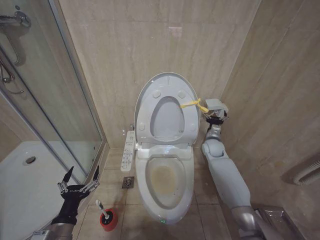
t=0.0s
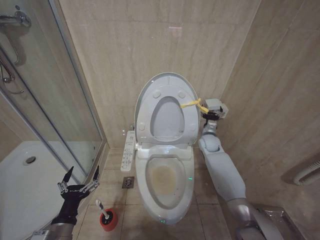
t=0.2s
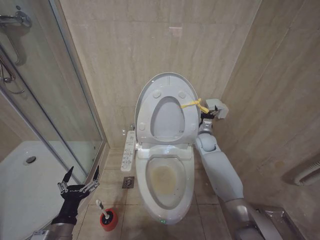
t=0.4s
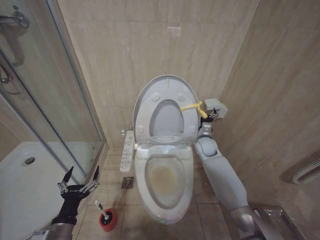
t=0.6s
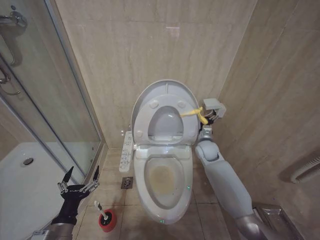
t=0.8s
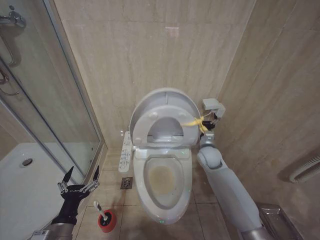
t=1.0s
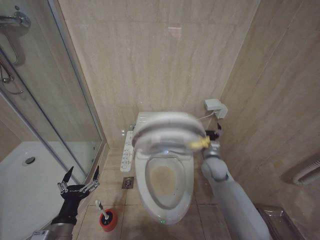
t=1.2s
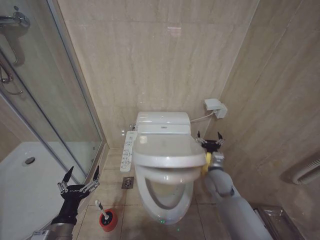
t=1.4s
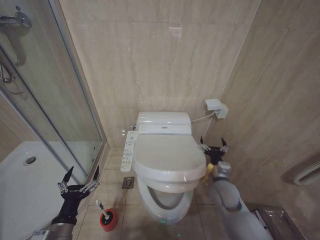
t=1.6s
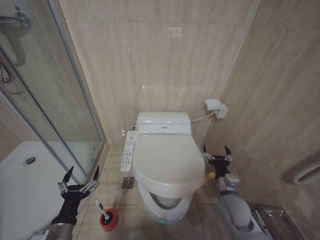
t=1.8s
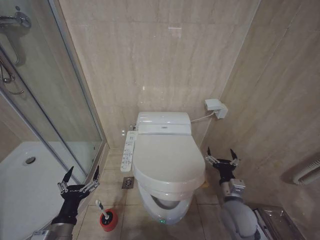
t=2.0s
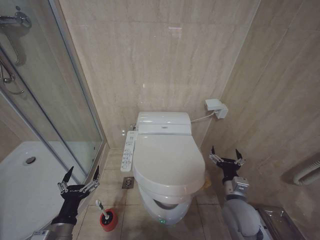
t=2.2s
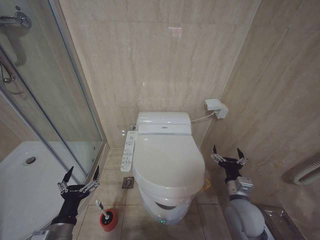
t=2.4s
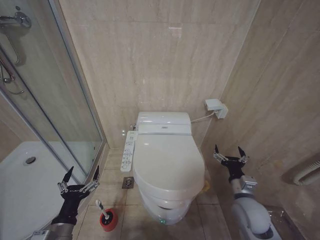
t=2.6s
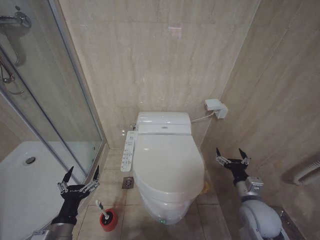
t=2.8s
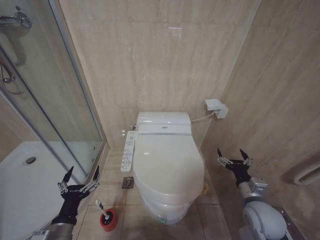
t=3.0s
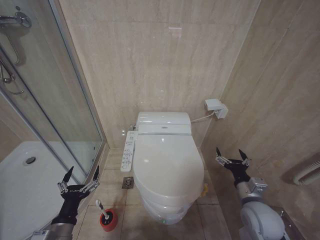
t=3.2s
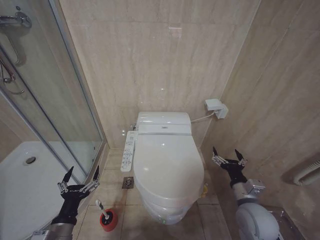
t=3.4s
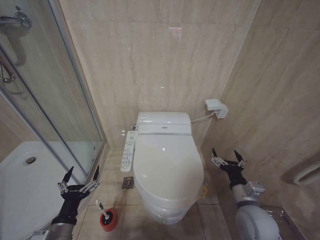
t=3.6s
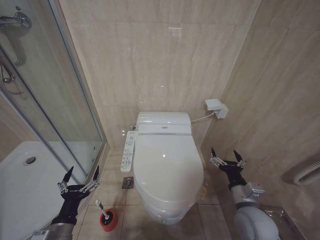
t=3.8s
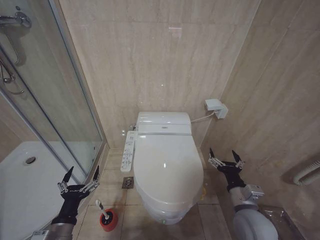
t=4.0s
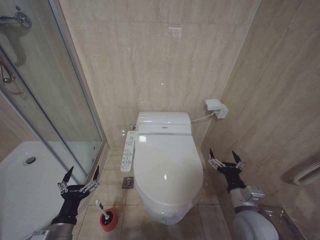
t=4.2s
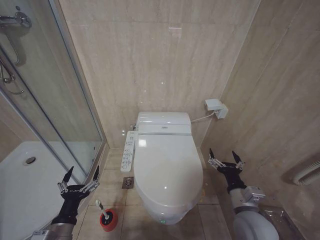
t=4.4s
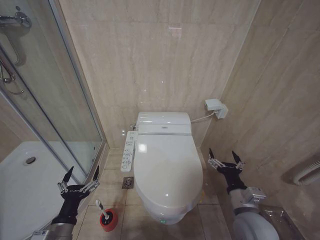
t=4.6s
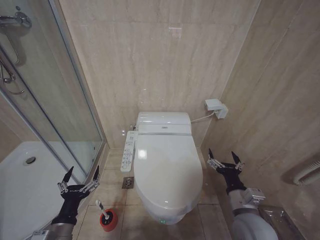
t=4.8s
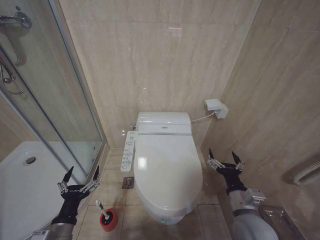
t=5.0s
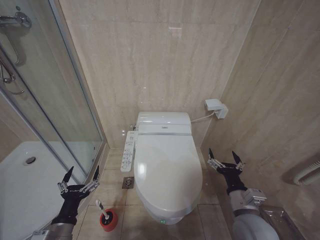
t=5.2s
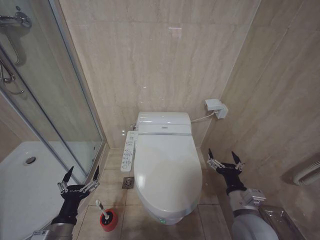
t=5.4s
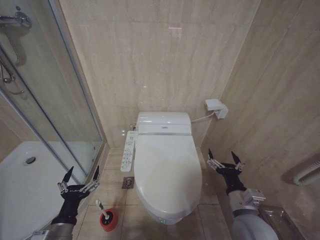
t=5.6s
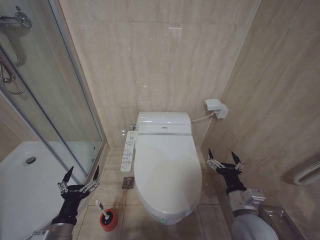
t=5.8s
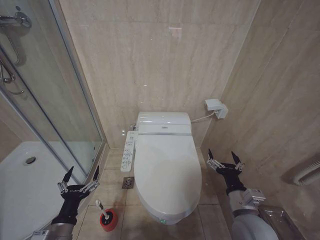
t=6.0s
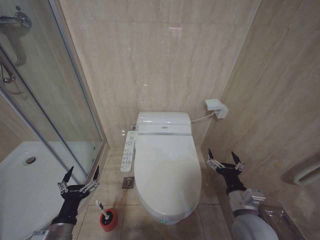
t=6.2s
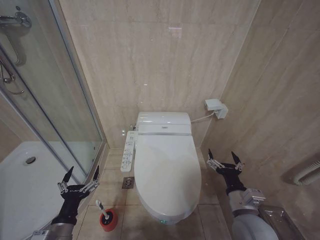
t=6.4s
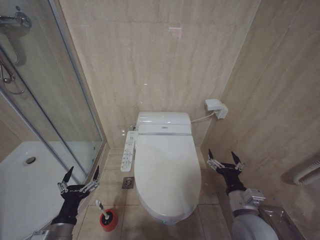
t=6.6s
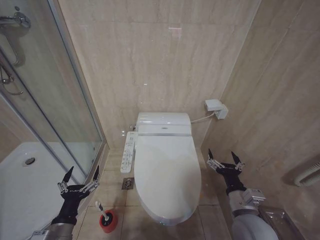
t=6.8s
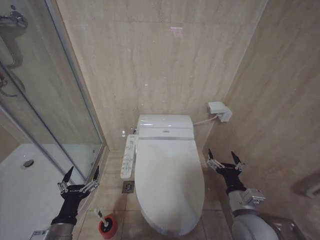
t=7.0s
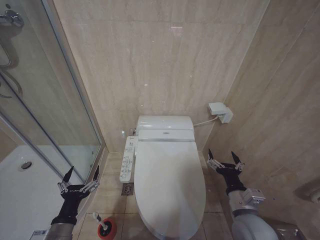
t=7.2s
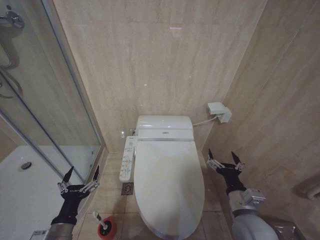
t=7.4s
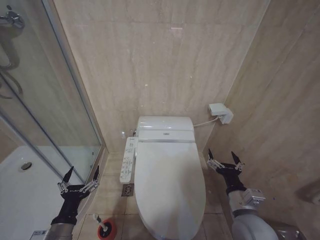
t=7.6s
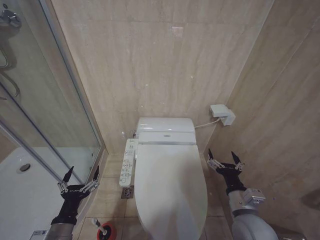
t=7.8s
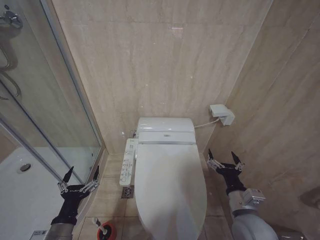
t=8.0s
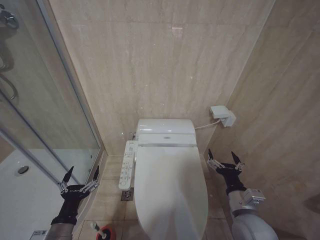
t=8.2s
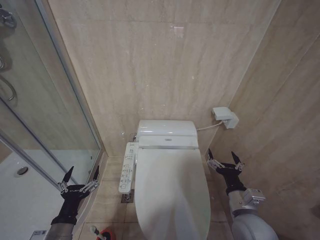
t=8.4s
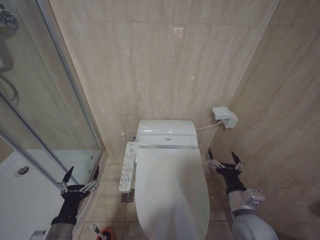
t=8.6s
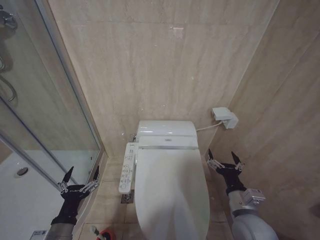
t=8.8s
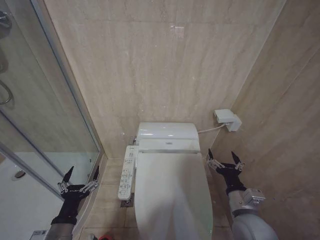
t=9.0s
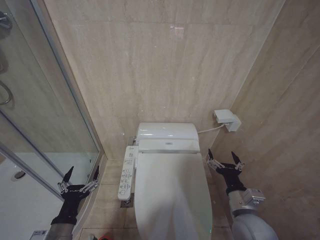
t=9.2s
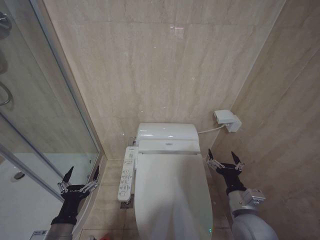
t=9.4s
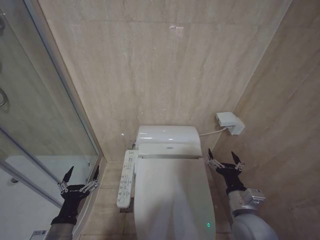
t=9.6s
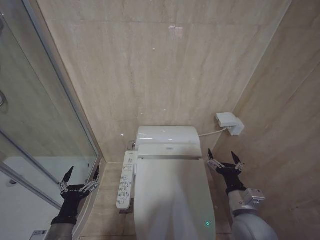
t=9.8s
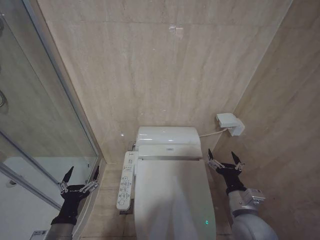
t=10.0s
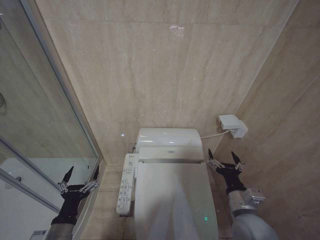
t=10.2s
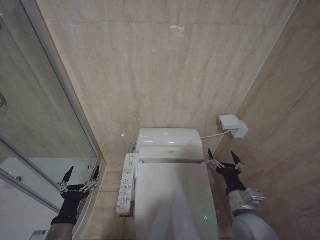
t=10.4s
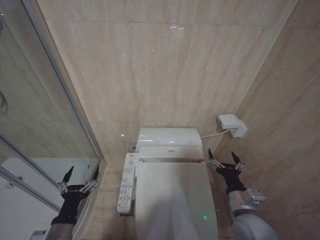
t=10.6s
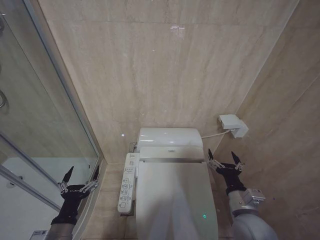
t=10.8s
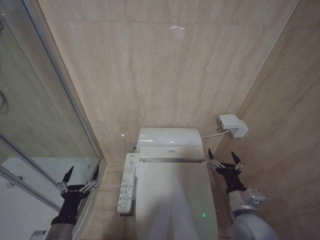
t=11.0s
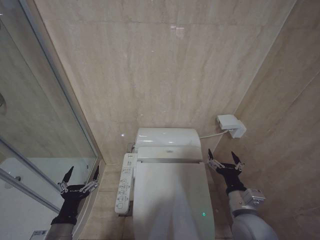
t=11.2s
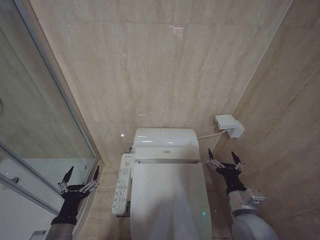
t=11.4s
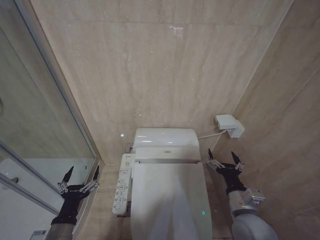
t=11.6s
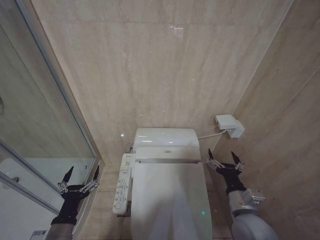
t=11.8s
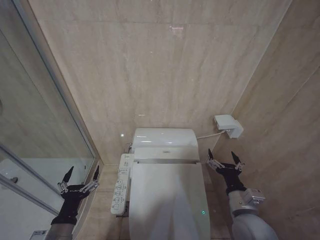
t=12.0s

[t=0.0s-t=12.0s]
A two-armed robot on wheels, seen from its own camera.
Task of the whole recording: Open the toilet lid, clean the toilet bowl with a toilet brush, close the toilet lid, and flush.
t=0.0s to t=1.6s: The right gripper shifts about 15 cm backward.
t=1.6s to t=3.0s: The right gripper heads backward and to the right, covering roughly 10 cm.
t=3.0s to t=4.4s: The right gripper moves to the left, some 5 cm.
t=6.0s to t=12.0s: The two grippers keep their place.

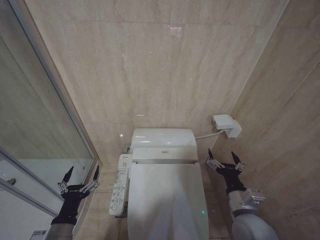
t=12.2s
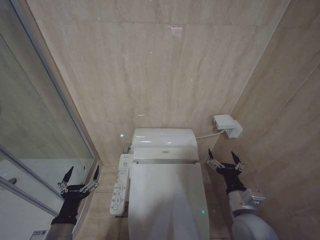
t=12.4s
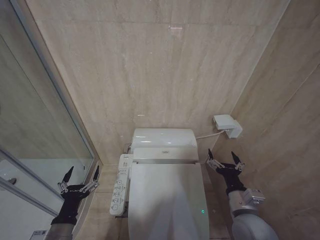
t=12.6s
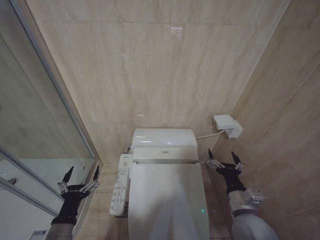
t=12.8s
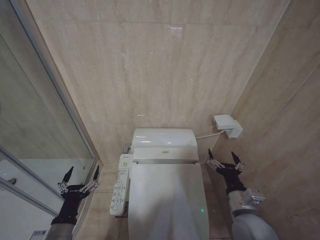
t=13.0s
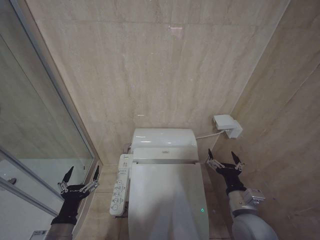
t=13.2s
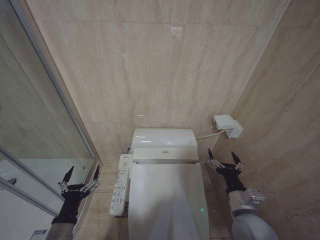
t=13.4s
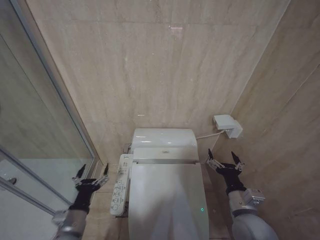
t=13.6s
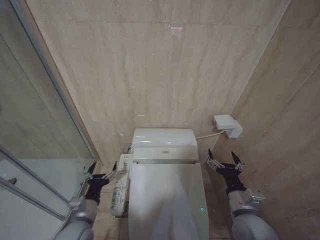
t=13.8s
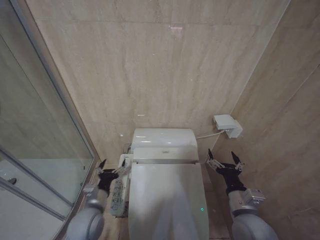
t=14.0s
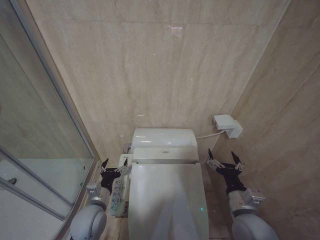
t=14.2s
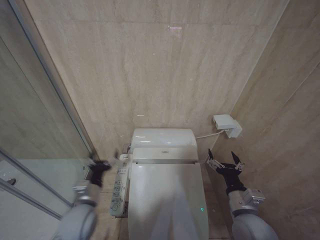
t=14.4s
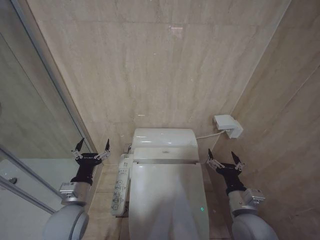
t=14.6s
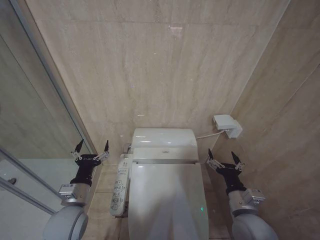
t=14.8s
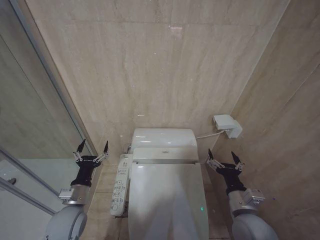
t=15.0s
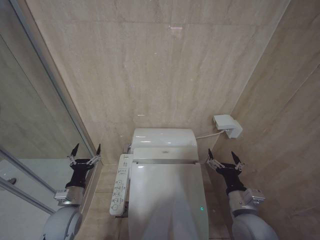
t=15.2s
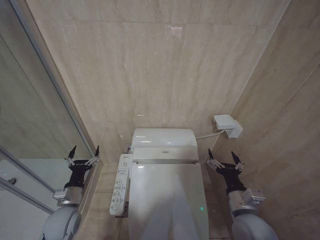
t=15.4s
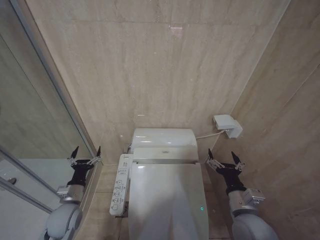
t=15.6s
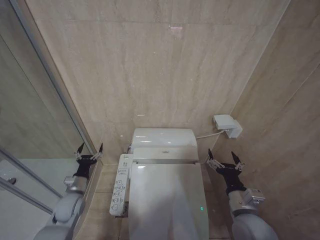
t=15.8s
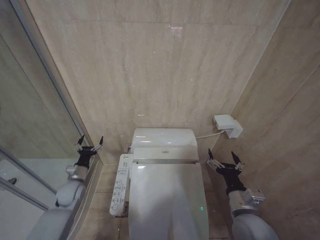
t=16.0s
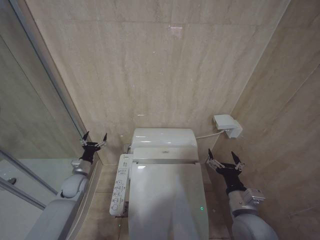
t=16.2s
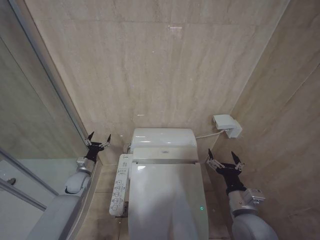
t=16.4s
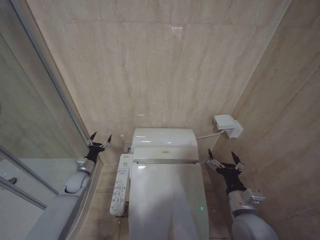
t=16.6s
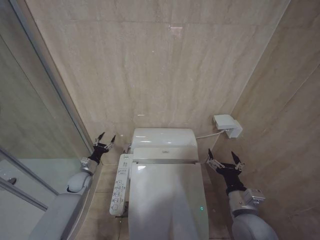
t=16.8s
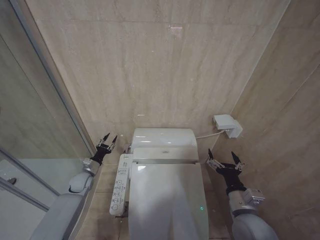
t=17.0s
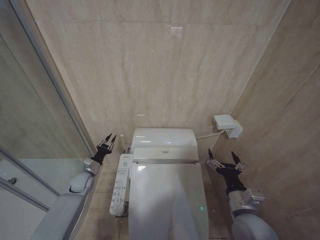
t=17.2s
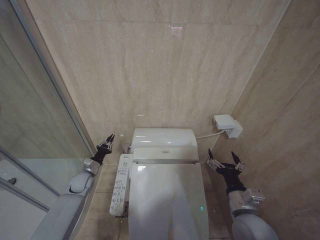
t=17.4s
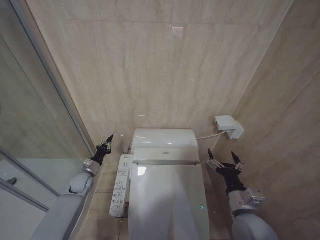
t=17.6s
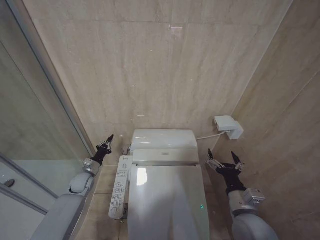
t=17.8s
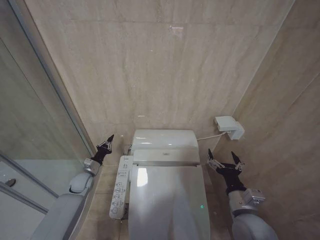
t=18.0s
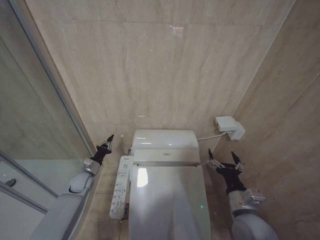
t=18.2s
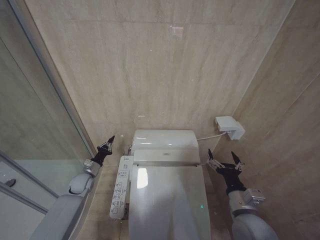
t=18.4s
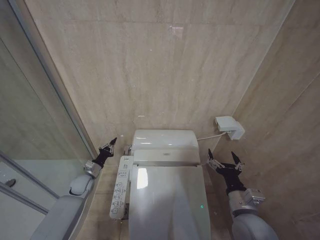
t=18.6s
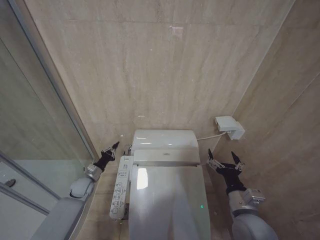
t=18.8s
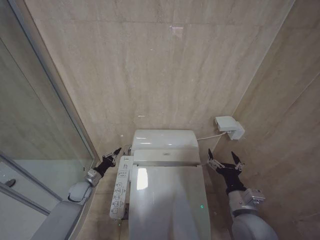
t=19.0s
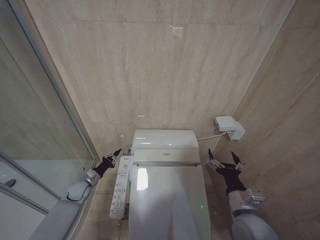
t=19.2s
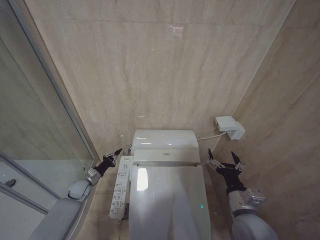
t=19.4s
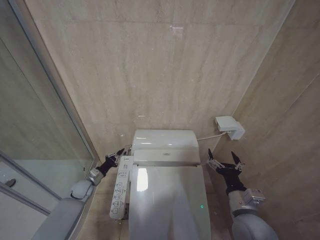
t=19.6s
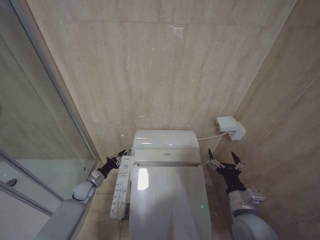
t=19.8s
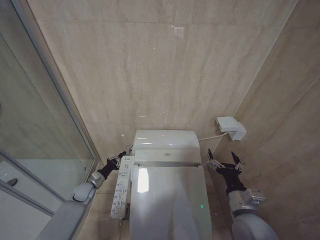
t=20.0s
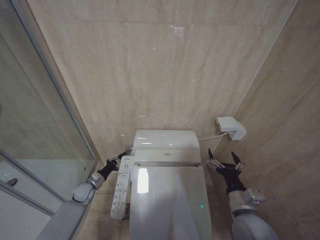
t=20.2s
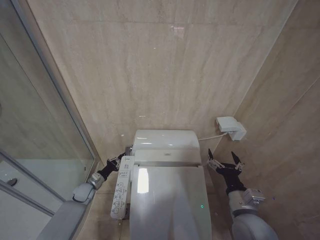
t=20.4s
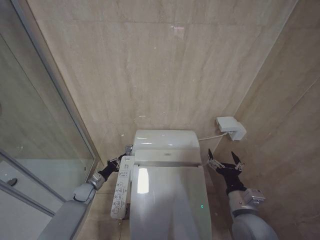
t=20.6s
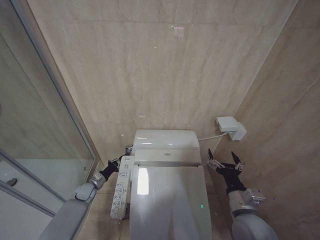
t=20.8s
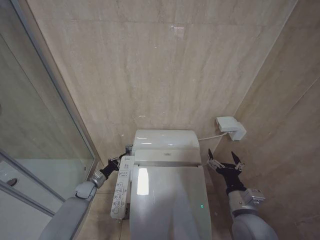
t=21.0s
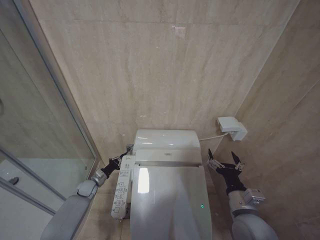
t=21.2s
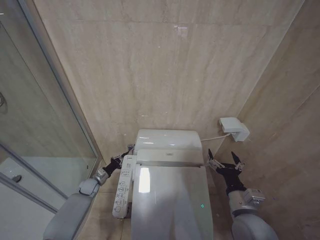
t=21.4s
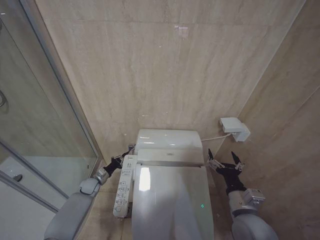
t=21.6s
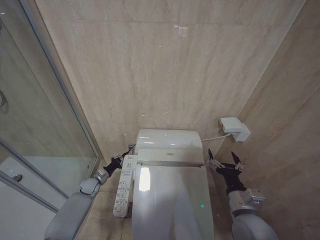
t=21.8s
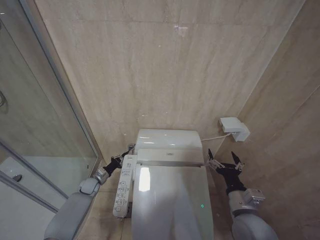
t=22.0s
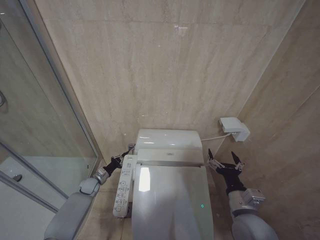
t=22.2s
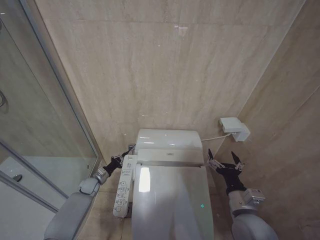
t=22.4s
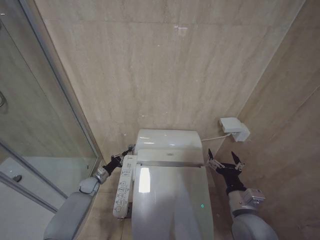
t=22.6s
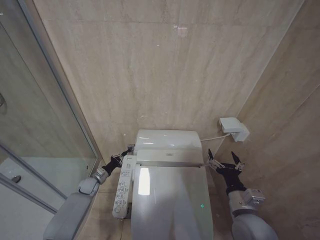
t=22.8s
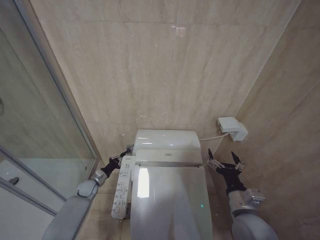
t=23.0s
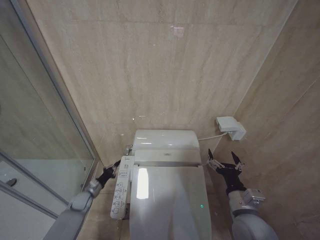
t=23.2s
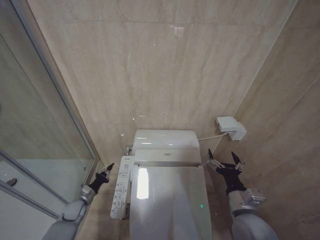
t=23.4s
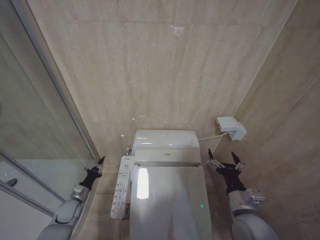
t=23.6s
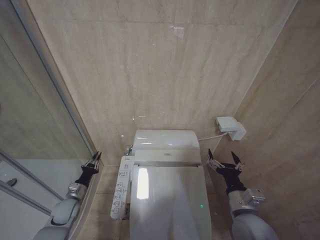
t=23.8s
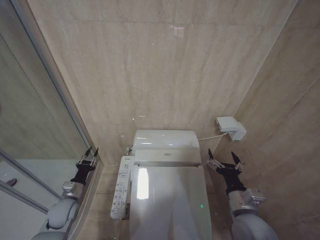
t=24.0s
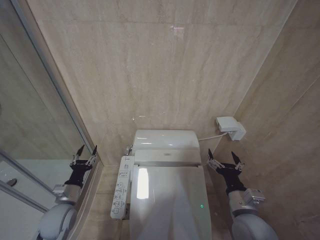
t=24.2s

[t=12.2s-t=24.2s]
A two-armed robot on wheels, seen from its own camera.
Task of the whole recording: Open the toilet lid, clean the toilet bowl with a toilet brush, close the toilet lid, and flush.
t=12.2s to t=13.8s: The left gripper heads forward, covering some 5 cm.
t=13.8s to t=15.2s: The left gripper moves forward, roughly 5 cm.
t=15.2s to t=16.6s: The left gripper goes approximately 15 cm forward.
t=16.6s to t=18.2s: The left gripper closes up.
t=18.2s to t=19.8s: The left gripper moves downward, about 5 cm.
t=19.8s to t=22.6s: The grippers make only small movements.
t=22.6s to t=24.2s: The left gripper is displaced backward and upward by approximately 20 cm, and opens.
